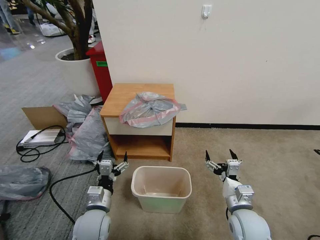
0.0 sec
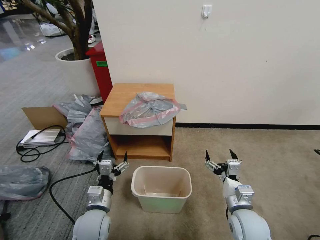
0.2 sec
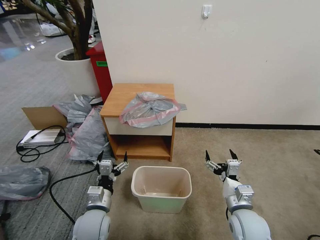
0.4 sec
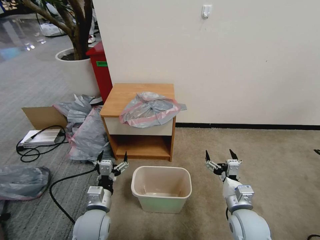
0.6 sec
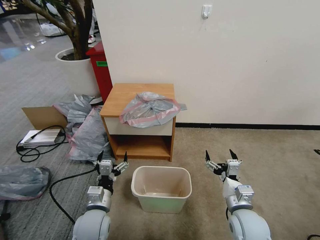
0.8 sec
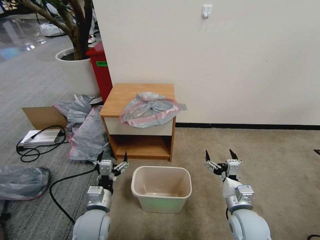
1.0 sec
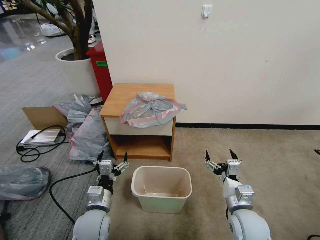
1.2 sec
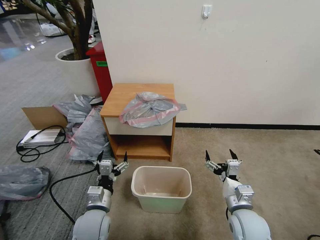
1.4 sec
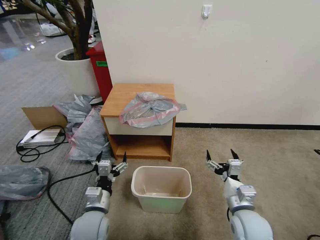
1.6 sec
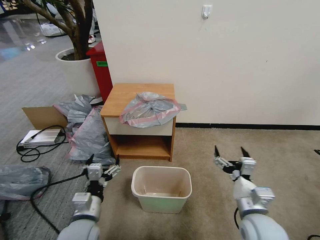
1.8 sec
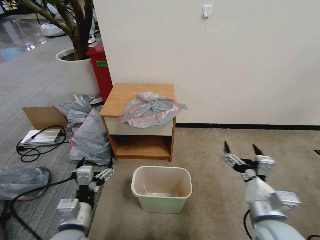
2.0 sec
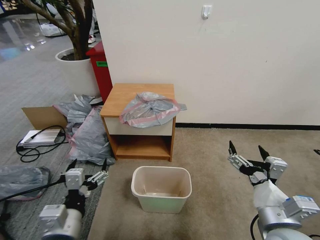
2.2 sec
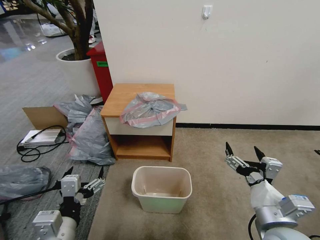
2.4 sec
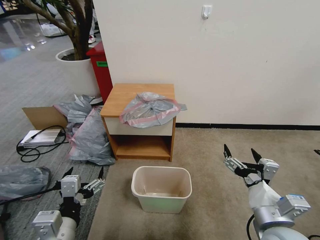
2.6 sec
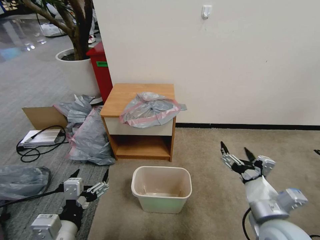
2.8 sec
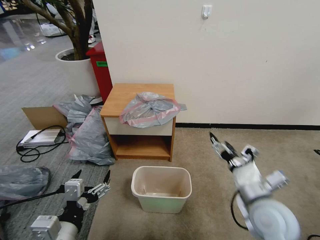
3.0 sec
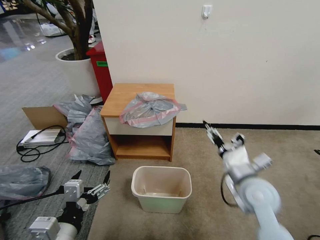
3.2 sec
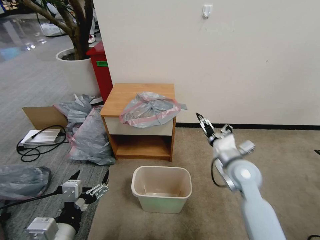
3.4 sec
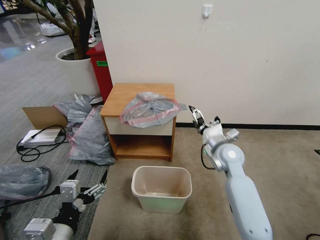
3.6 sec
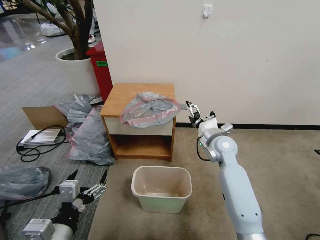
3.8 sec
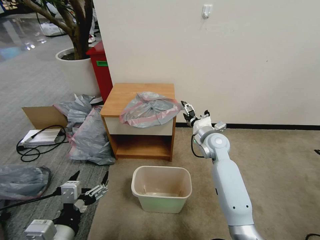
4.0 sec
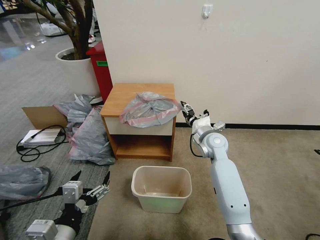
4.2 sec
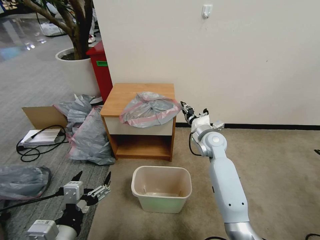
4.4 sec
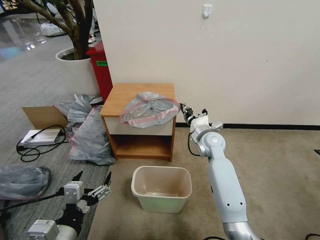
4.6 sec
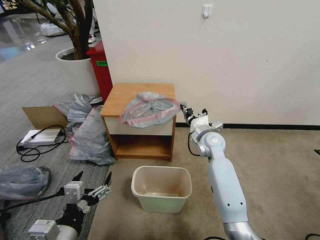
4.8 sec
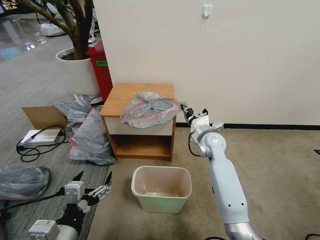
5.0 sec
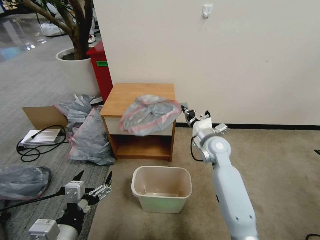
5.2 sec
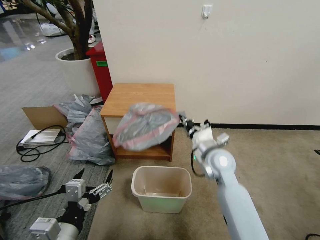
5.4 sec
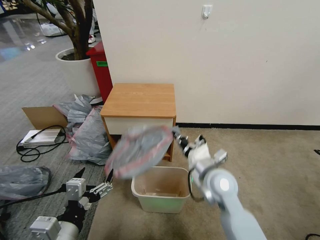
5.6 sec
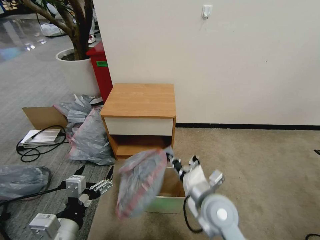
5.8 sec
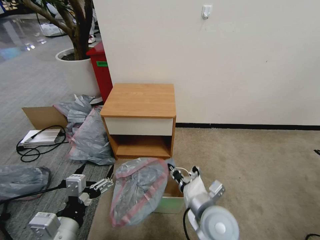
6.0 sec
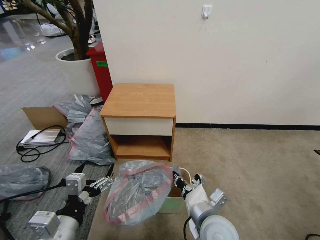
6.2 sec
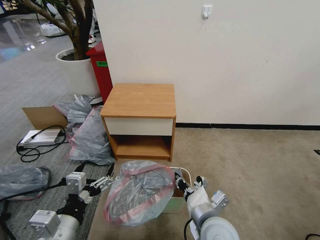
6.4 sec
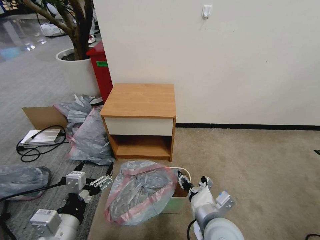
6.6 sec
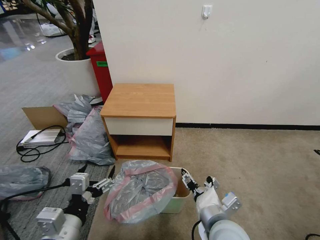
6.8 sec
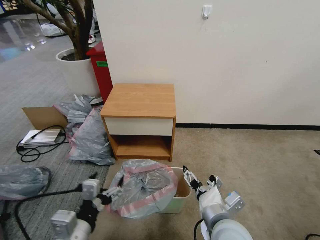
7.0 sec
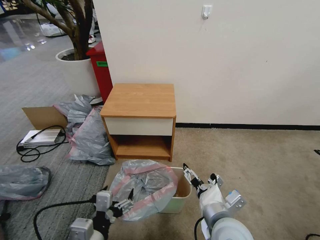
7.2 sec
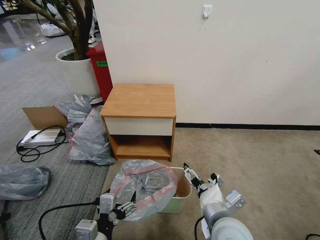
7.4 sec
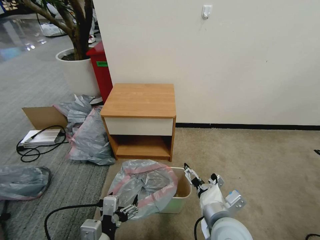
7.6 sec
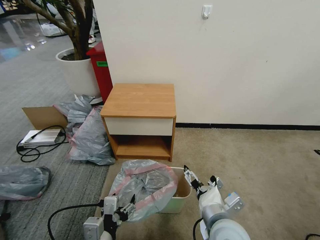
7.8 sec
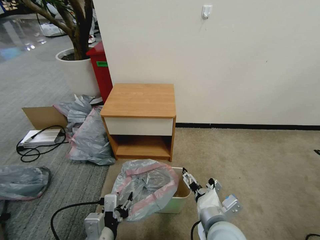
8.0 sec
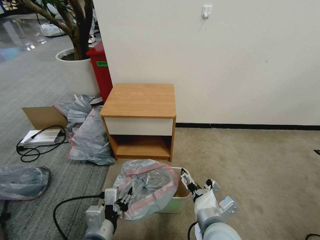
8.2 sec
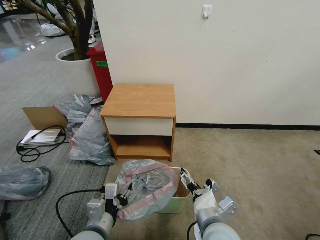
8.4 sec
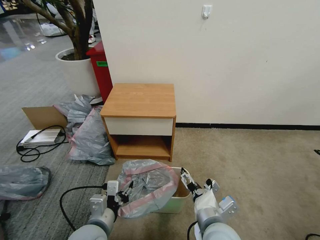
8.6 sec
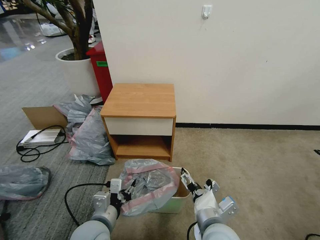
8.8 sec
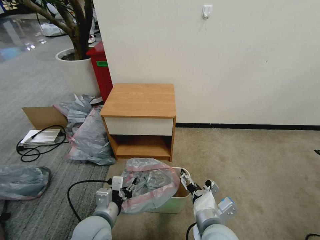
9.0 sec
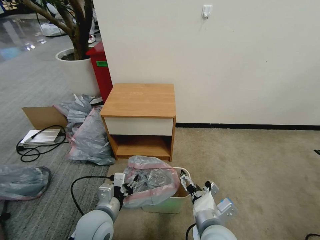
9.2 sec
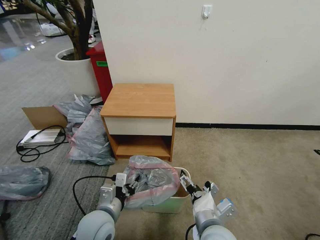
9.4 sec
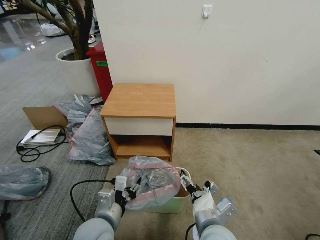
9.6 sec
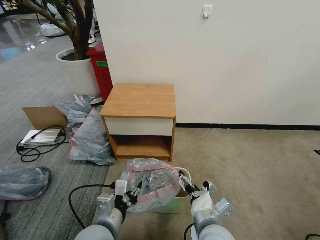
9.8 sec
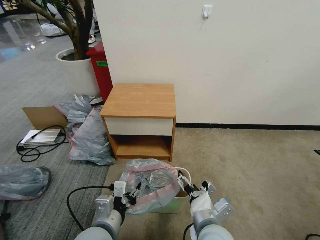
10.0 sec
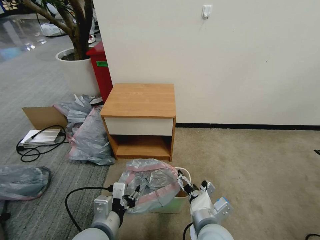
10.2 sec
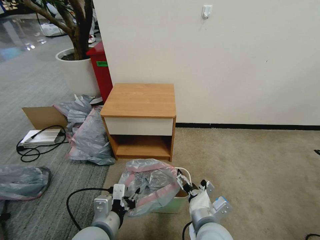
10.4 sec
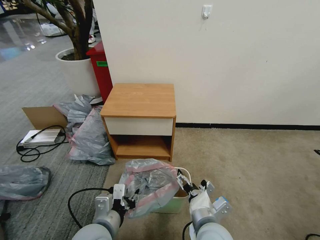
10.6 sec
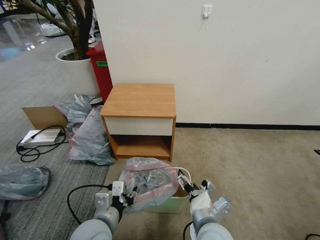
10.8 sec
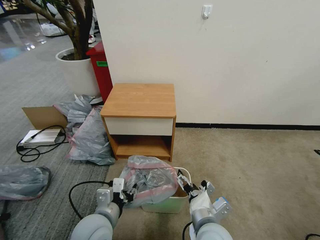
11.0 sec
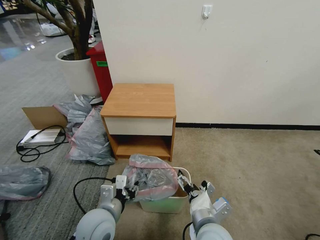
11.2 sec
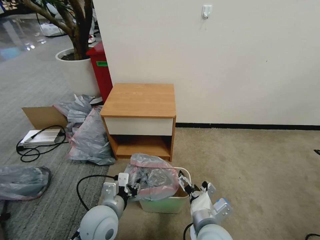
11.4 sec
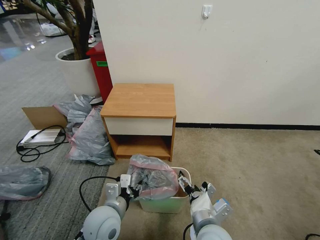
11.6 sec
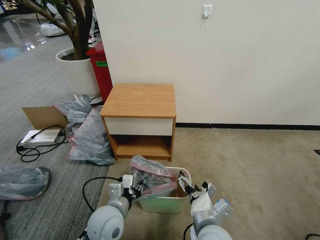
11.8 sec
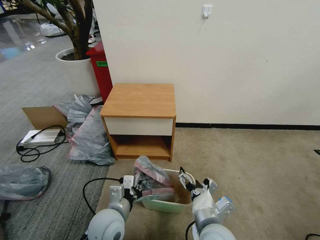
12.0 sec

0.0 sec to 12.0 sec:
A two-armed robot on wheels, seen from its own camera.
Task of the whole recording: Pick up the garbage bag from the table and place it over the trash can.
1.6 sec to 3.0 sec: The left gripper is displaced upward and backward by about 15 cm. The right gripper goes roughly 10 cm upward.
3.0 sec to 4.4 sec: The right gripper goes roughly 25 cm forward, and closes up.
4.4 sec to 6.0 sec: The right gripper shifts approximately 25 cm backward, and closes up.
6.0 sec to 7.6 sec: The left gripper moves to the right, about 5 cm; the right gripper opens.
7.6 sec to 9.0 sec: The left gripper heads forward, covering some 10 cm, and closes its fingers.
9.0 sec to 10.4 sec: The left gripper changes place by approximately 5 cm.
10.4 sec to 12.0 sec: The left gripper travels forward by about 5 cm, and closes.

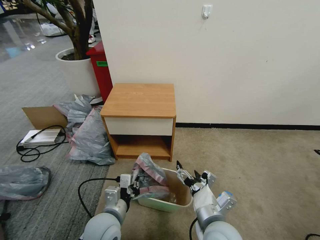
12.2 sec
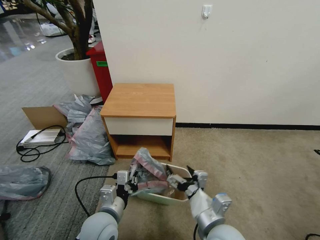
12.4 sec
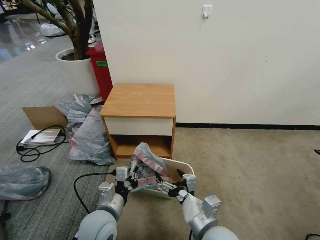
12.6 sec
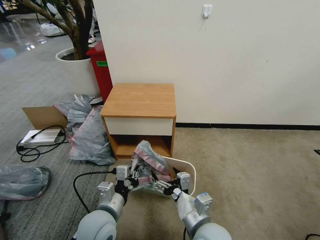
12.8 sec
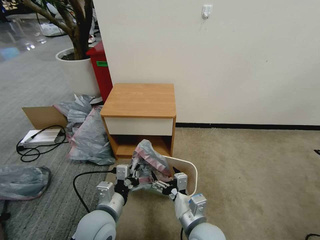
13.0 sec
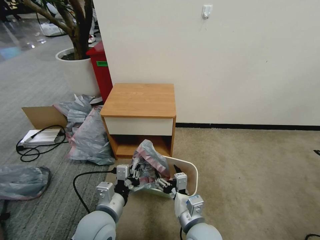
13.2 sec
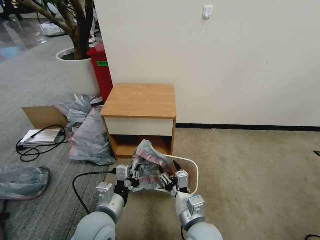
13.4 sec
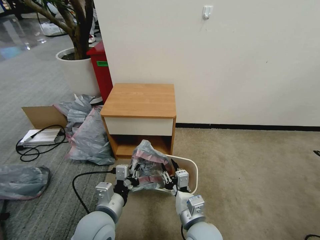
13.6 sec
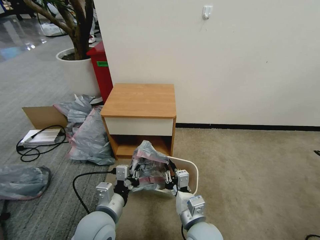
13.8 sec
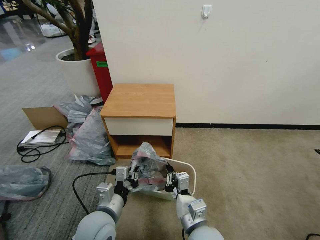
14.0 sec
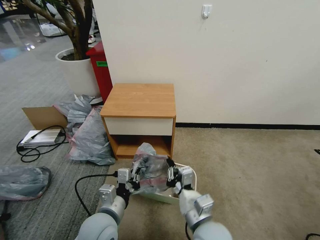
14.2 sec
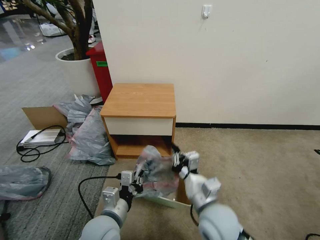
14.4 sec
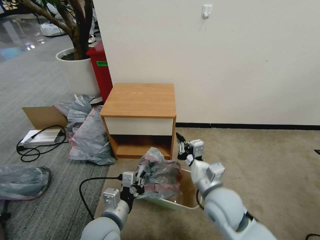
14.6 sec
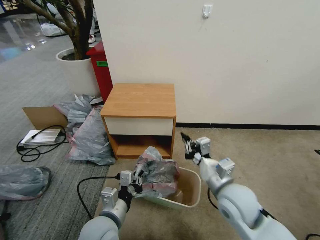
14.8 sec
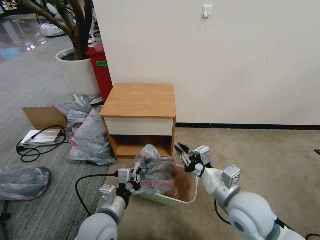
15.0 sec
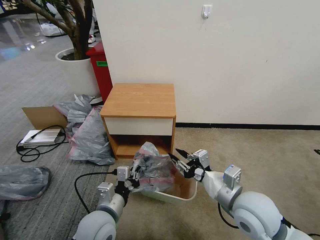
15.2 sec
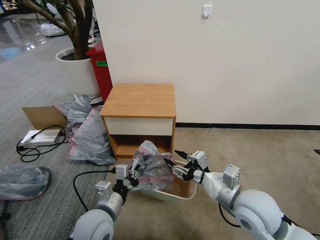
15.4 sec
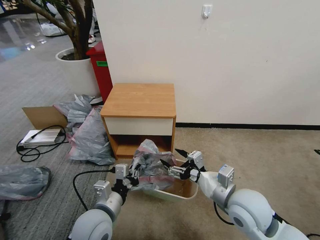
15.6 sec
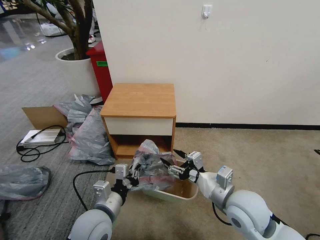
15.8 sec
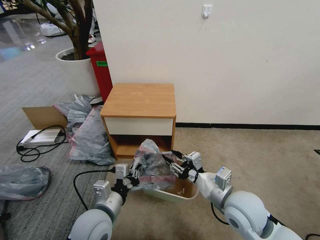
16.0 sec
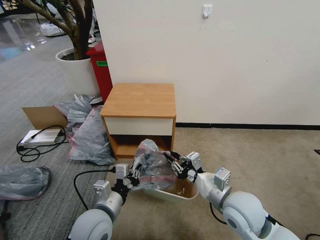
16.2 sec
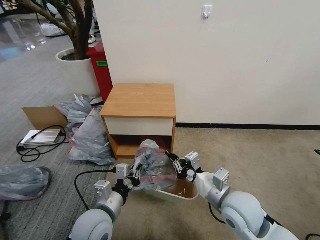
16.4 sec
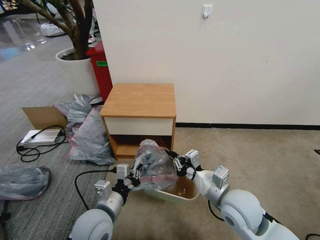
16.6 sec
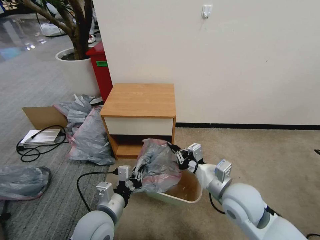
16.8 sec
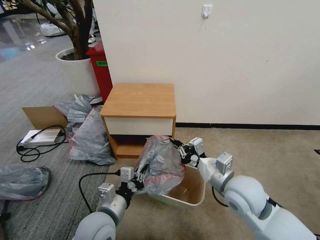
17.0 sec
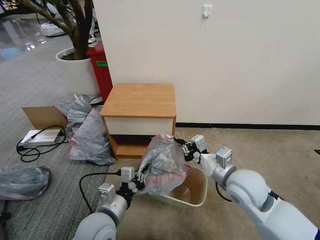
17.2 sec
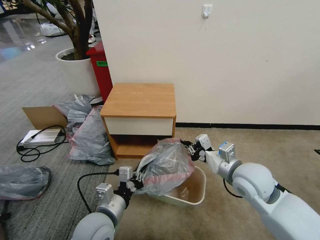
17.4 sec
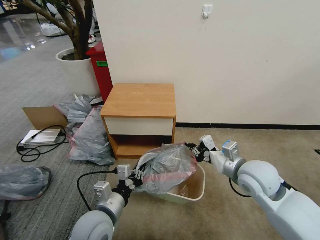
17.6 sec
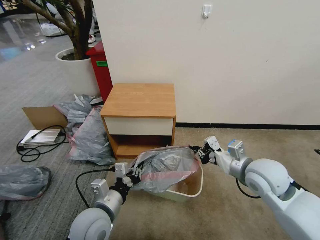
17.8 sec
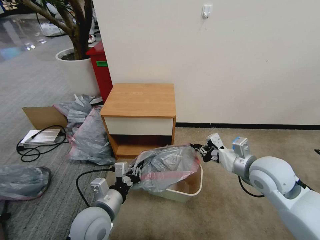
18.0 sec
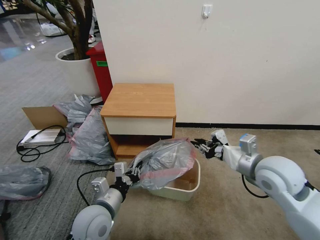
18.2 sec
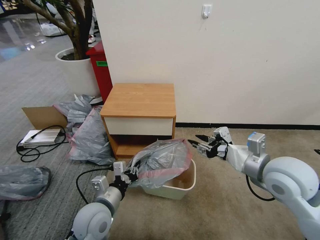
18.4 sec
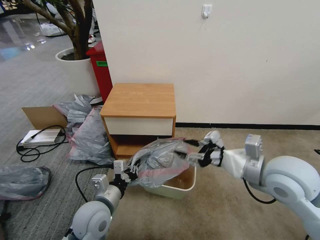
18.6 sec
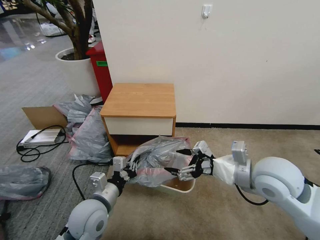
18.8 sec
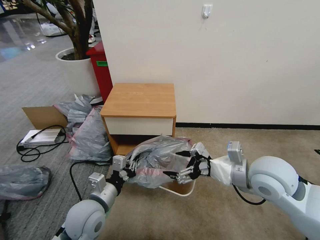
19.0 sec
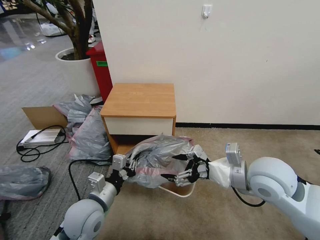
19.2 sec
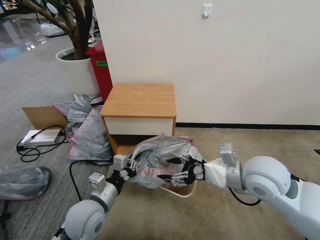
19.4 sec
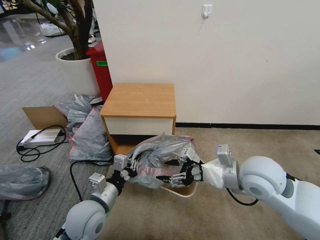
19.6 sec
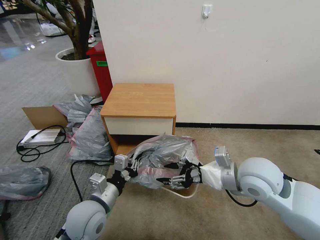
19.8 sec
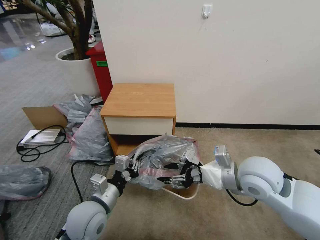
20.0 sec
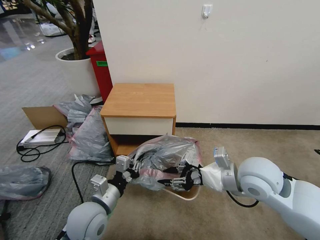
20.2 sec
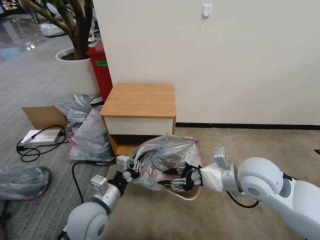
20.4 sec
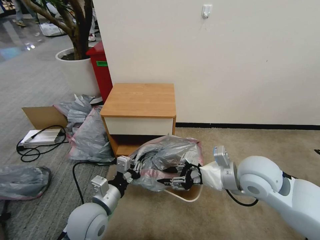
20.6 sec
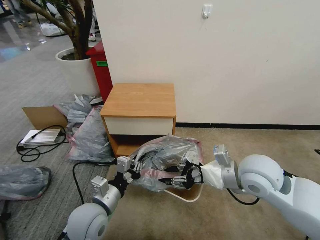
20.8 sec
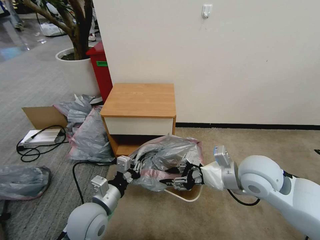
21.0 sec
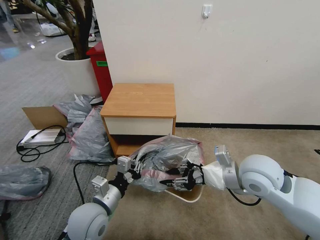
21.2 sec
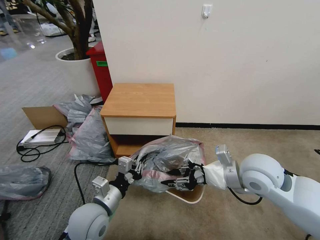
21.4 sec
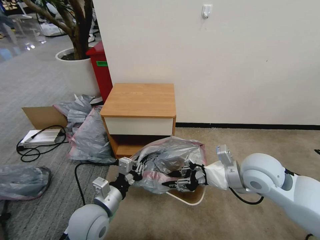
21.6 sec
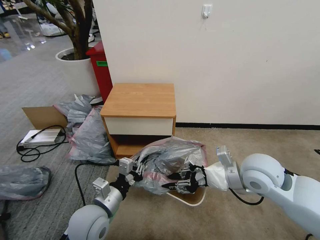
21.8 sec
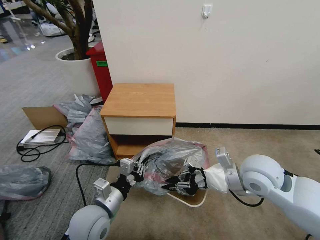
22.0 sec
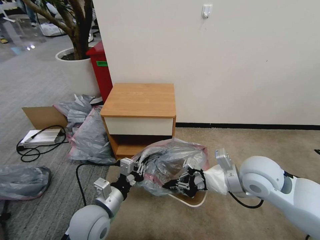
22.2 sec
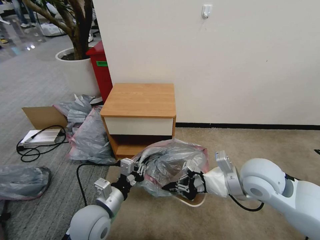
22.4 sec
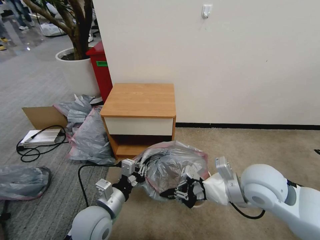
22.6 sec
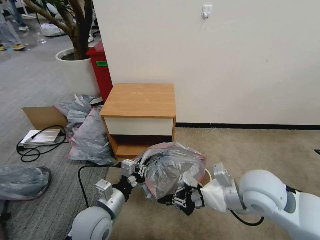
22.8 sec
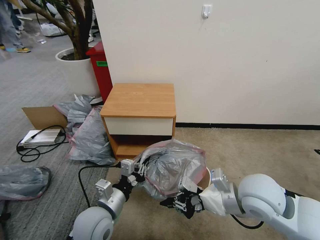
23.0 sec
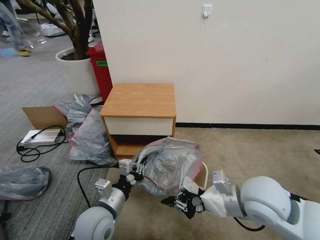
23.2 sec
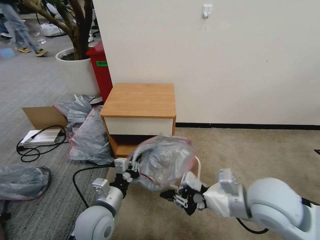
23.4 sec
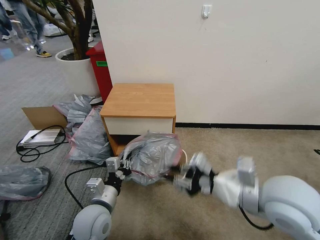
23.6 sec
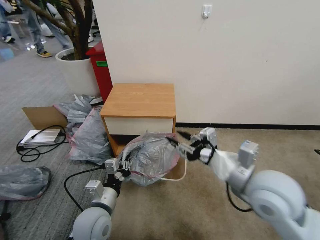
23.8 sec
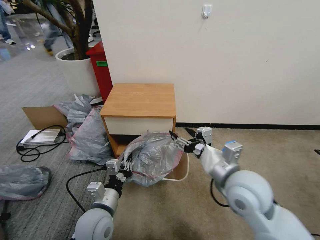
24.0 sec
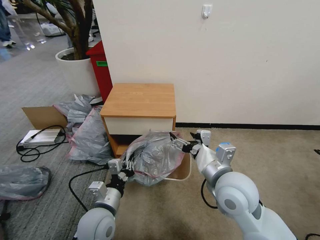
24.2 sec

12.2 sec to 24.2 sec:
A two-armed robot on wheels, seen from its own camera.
Task of the whole recording: Pick up the garbage bag from the table and place it over the trash can.
12.2 sec to 13.8 sec: The right gripper changes place by some 5 cm, and closes up.
13.8 sec to 15.2 sec: The right gripper shifts about 15 cm to the right and upward.
15.2 sec to 16.6 sec: The right gripper closes.
16.6 sec to 18.2 sec: The right gripper is displaced to the right, upward and forward by roughly 15 cm.
18.2 sec to 19.8 sec: The right gripper travels to the left by about 5 cm, and opens.
19.8 sec to 21.2 sec: The grippers stay close to where they were, moving slightly.
21.2 sec to 22.6 sec: The right gripper closes.
22.6 sec to 24.2 sec: The right gripper moves to the left, some 5 cm, and opens up.
